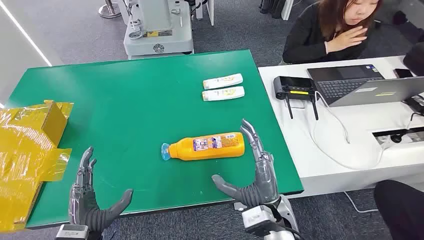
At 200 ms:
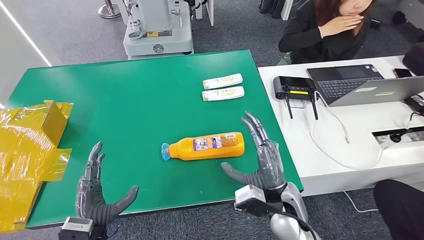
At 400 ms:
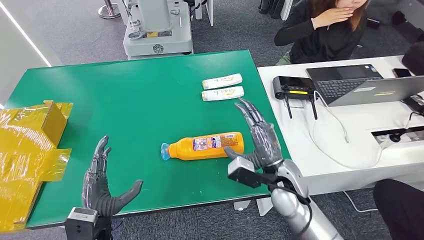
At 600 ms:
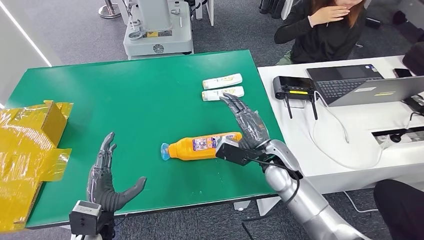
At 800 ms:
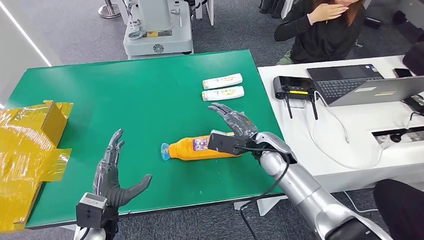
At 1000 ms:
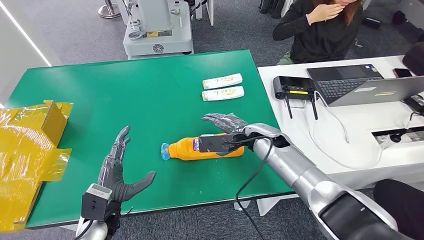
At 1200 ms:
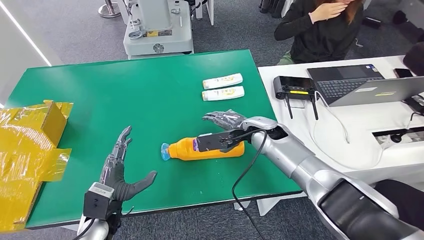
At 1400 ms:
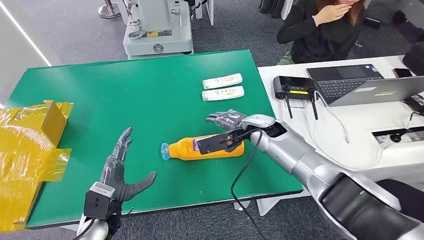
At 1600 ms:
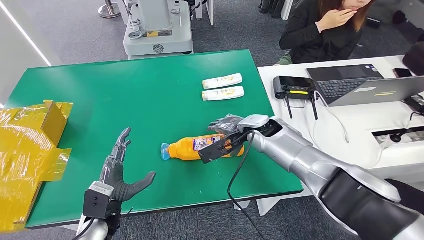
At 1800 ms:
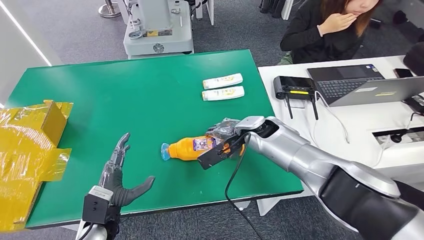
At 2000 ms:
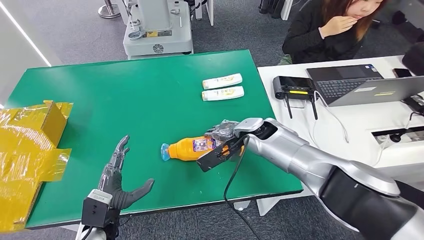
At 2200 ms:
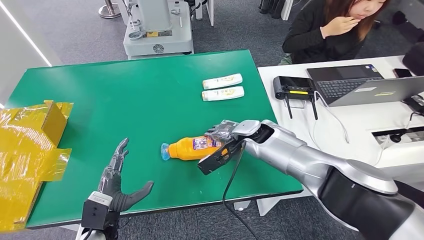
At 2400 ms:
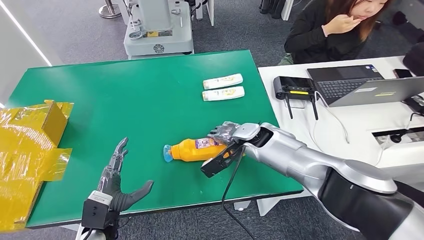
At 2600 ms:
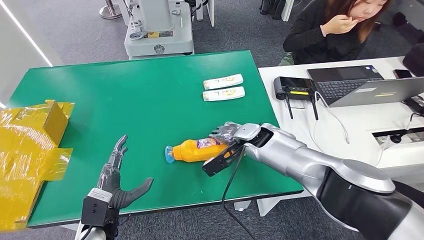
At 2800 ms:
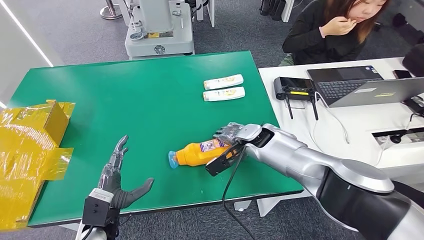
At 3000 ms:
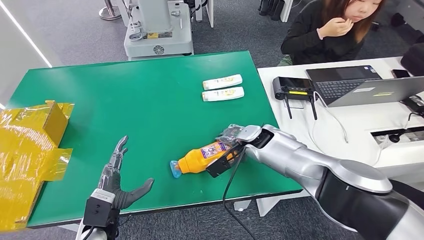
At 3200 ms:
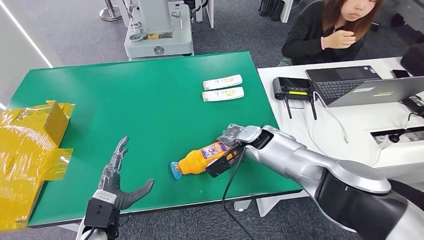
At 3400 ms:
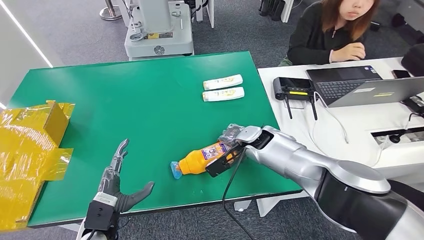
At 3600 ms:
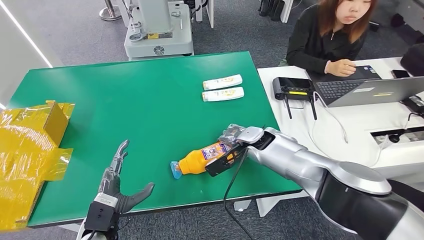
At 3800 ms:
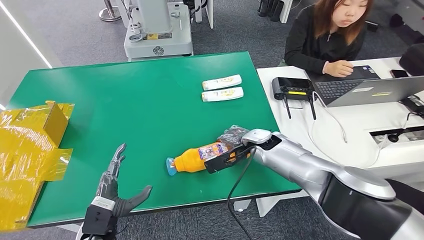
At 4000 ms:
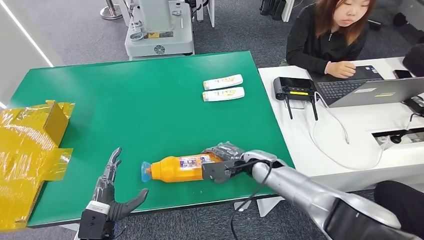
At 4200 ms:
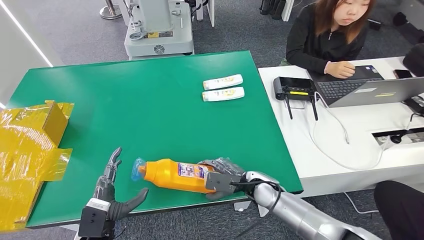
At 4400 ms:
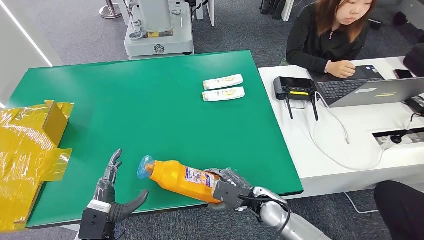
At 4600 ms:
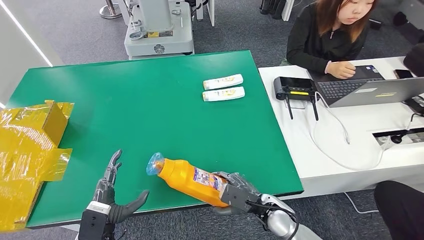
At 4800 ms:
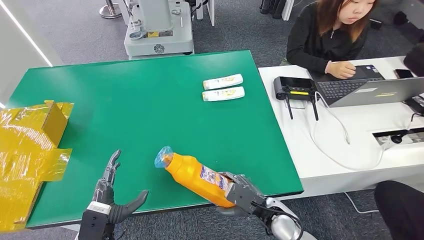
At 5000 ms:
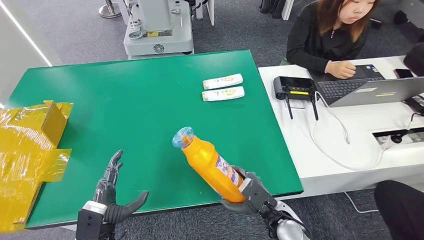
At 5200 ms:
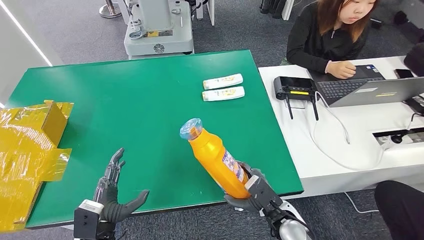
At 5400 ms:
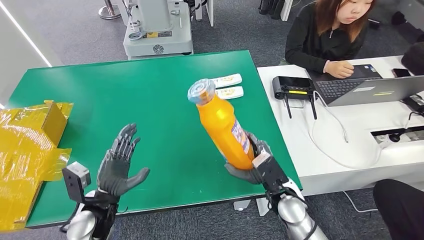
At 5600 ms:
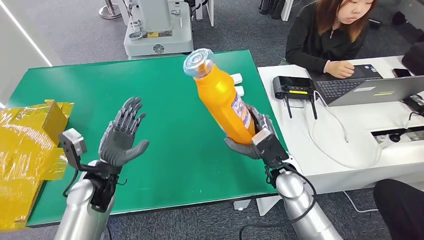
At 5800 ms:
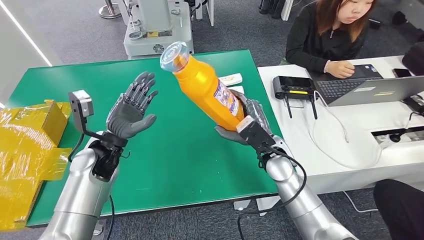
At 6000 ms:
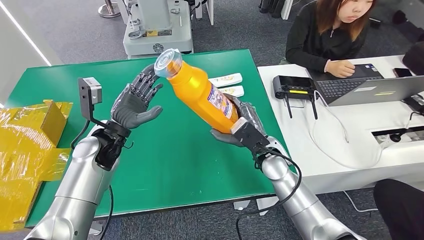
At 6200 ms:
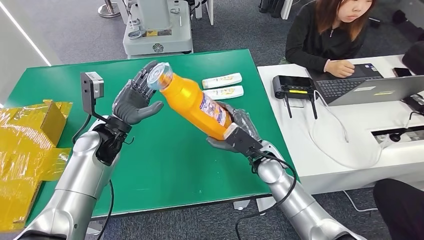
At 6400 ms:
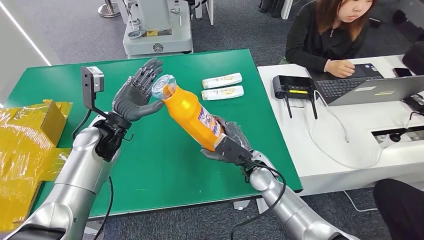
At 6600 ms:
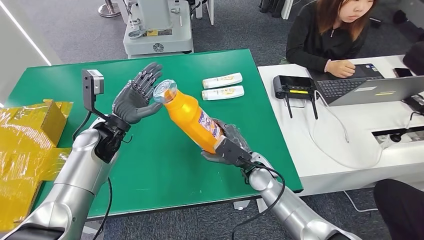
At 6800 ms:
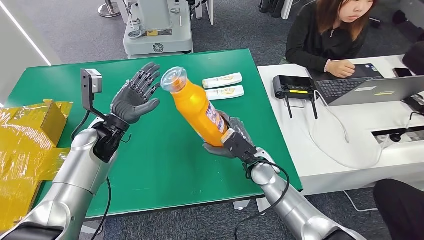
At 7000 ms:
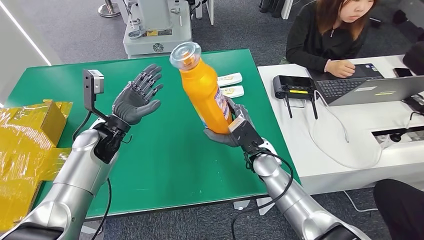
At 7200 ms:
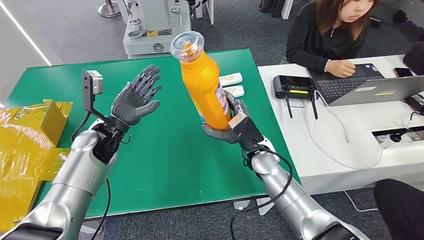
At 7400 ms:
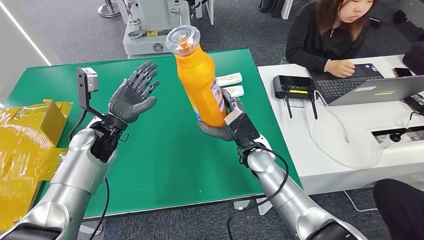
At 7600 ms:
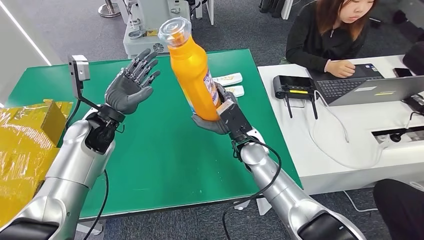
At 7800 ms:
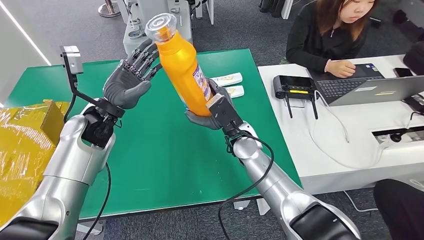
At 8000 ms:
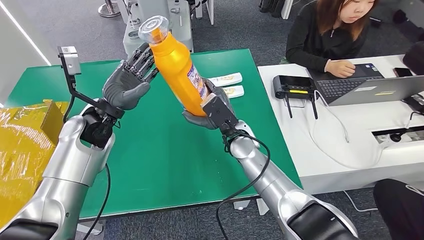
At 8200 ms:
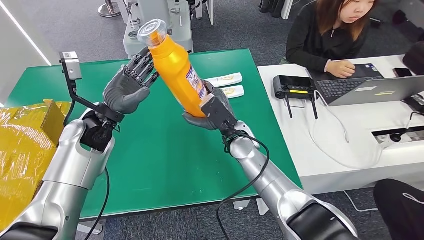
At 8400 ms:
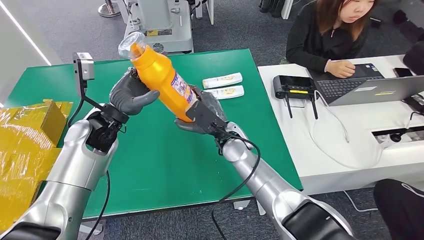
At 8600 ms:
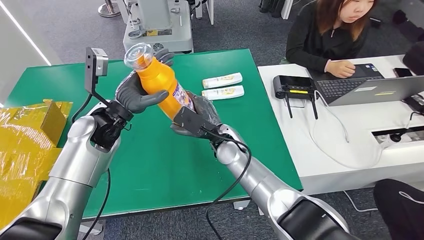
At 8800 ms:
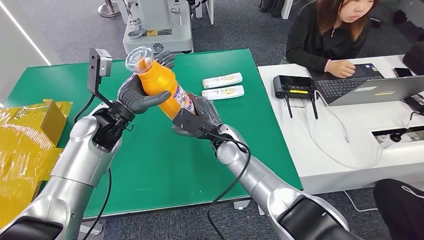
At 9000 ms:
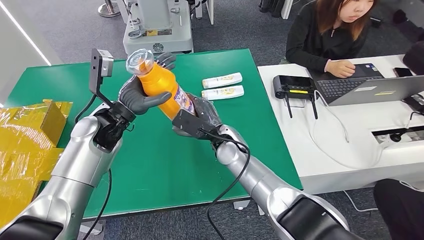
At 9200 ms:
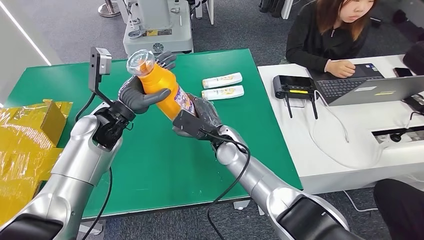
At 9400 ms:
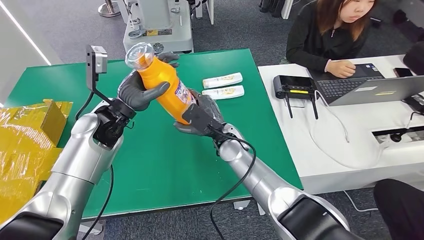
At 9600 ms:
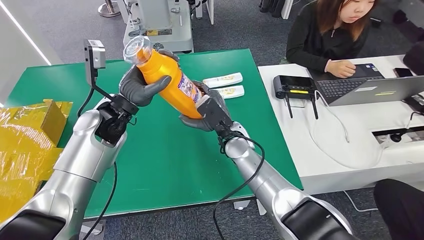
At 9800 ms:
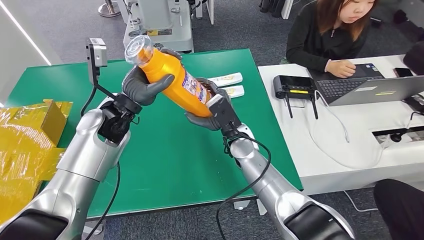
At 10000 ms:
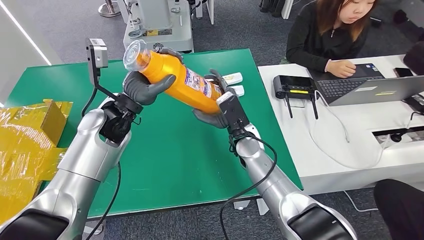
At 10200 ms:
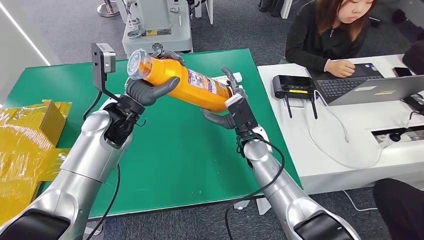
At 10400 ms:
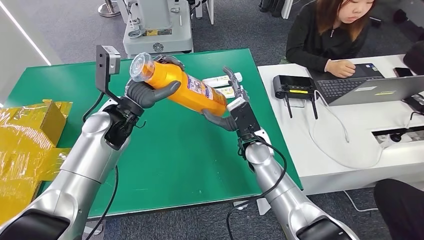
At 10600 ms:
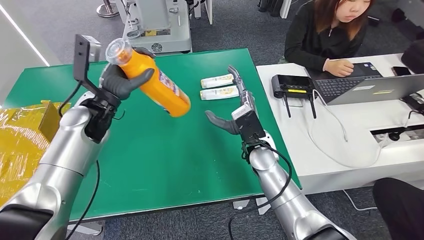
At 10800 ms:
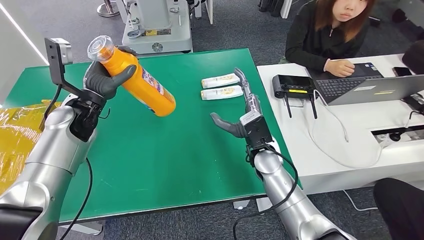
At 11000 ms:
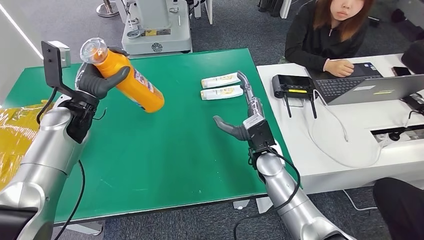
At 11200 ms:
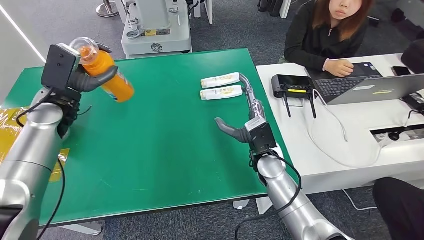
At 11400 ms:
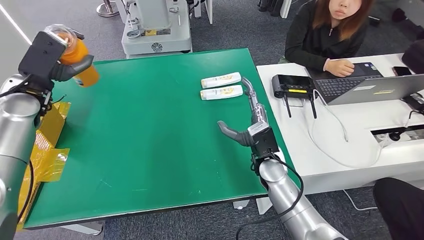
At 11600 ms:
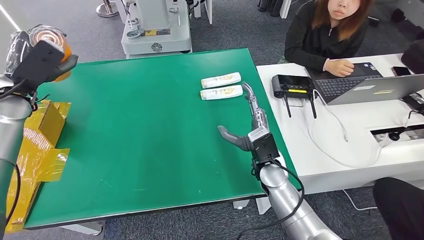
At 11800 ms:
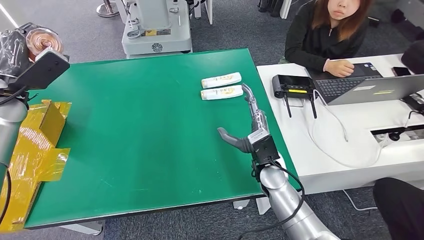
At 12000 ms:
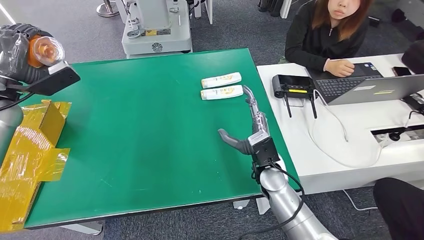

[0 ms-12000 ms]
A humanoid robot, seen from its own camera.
Step, 0 ms to 5000 ms: Pick up the bottle from the table.
6000 ms to 7600 ms: The right hand travels to the left by roughly 5 cm.
9000 ms to 10400 ms: The right hand is displaced to the right by some 5 cm.

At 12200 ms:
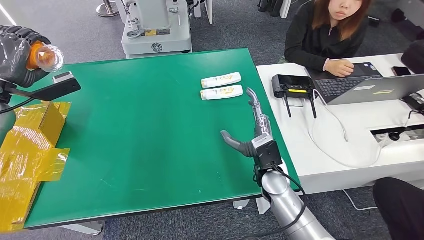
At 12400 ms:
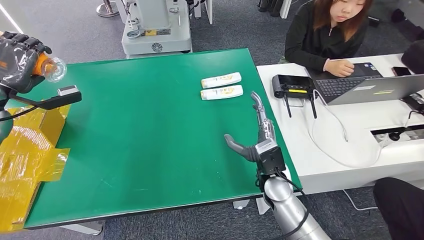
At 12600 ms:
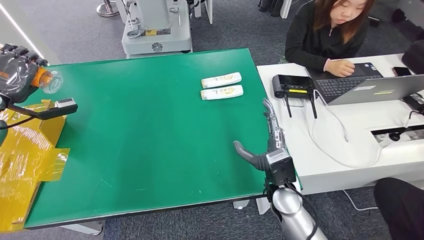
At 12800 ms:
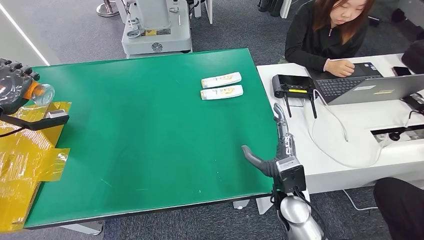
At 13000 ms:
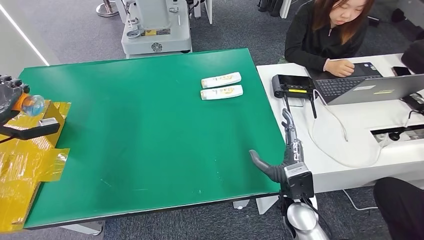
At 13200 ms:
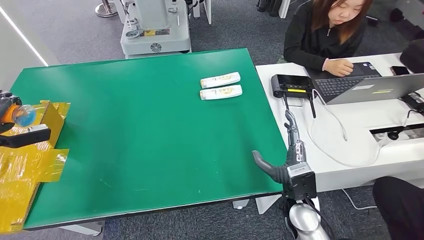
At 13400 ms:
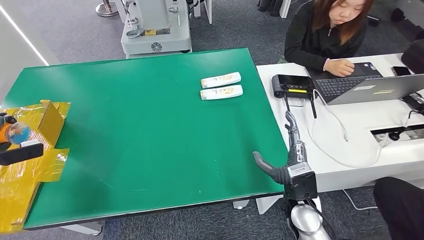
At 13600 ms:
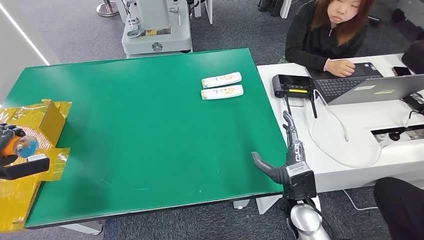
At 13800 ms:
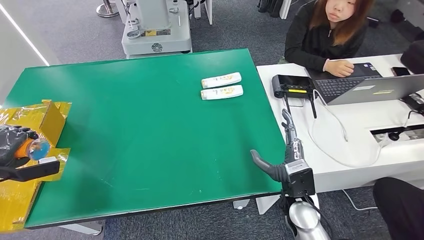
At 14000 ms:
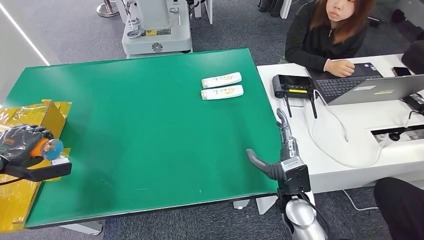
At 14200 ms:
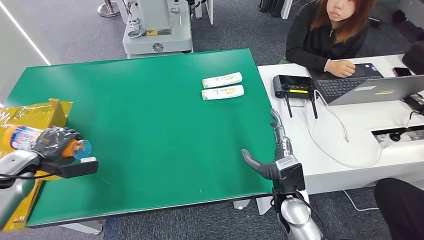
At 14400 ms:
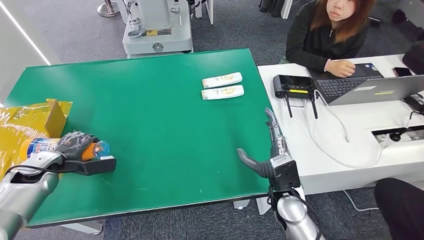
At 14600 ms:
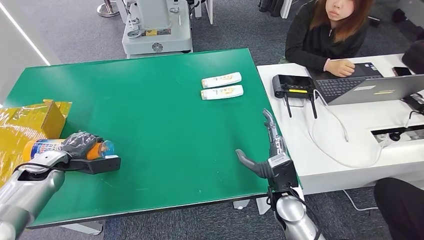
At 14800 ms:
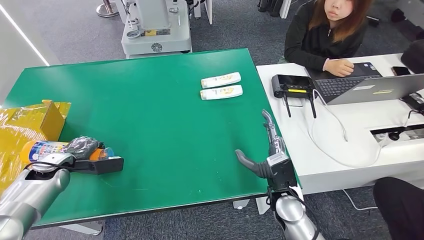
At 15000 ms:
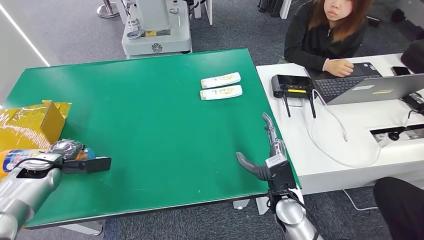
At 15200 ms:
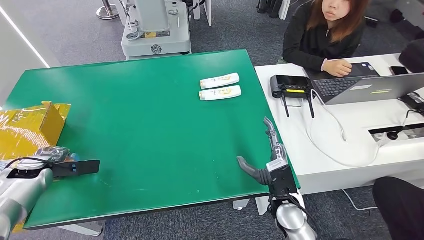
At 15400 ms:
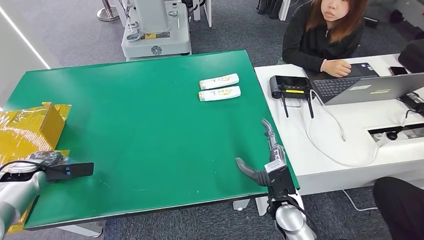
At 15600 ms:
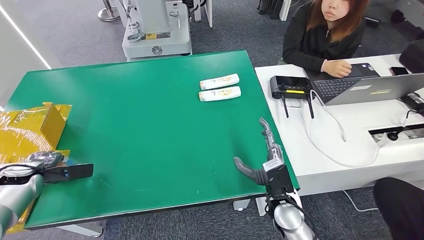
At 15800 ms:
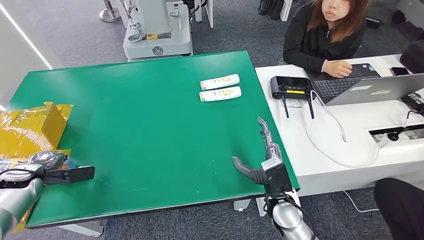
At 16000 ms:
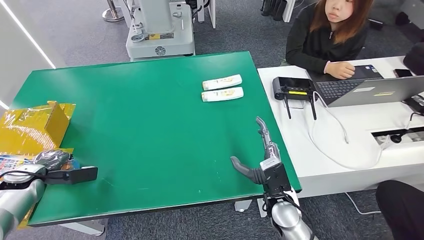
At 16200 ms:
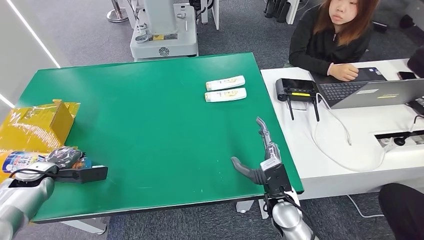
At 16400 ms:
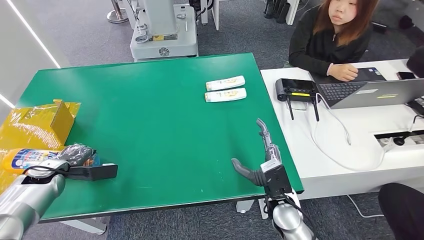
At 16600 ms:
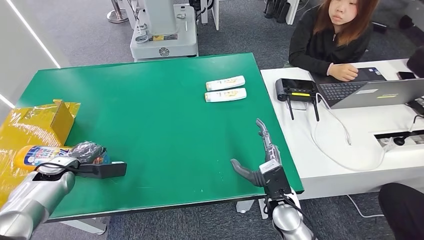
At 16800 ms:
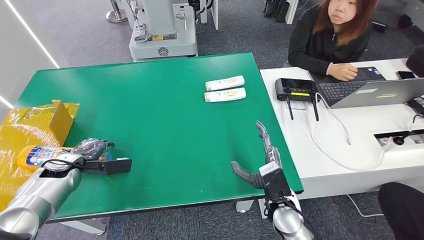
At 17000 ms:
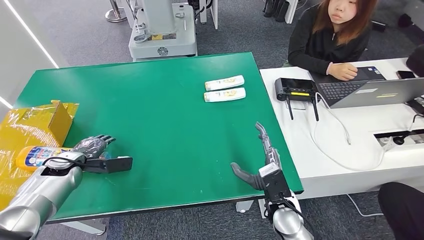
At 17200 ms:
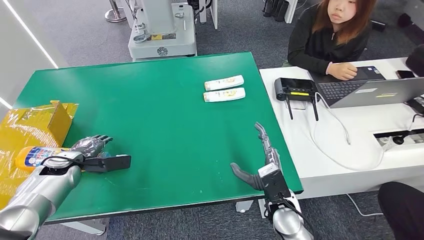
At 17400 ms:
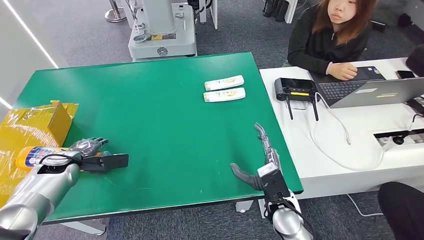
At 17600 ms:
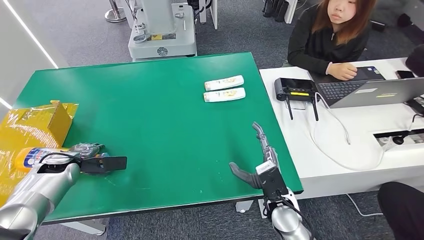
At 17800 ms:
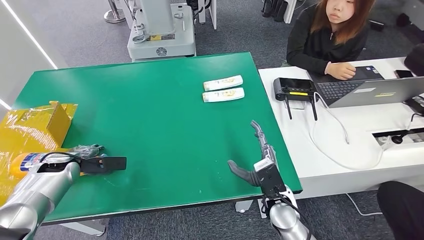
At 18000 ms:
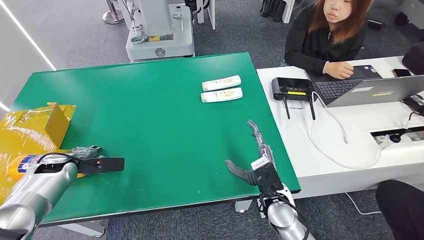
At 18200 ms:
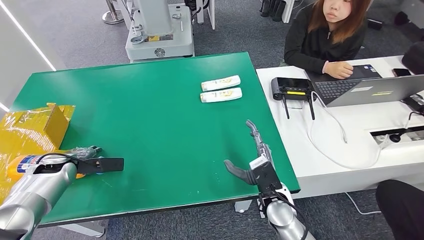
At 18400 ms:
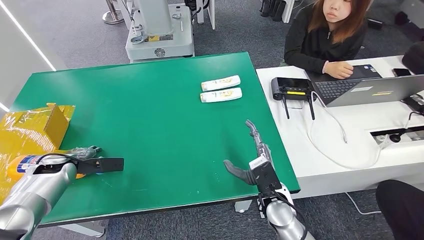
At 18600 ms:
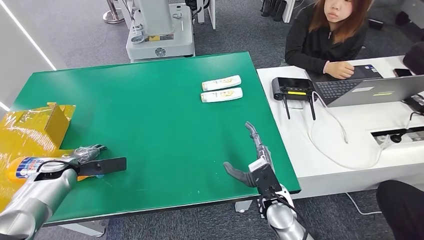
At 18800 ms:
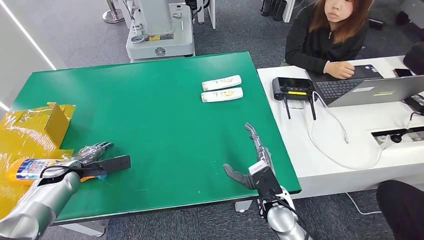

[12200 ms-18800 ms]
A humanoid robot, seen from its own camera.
Step, 12200 ms to 18800 ms: Turn the bottle to the front side.
12200 ms to 13800 ms: The right hand shifts roughly 10 cm backward; the left hand is displaced downward, backward and to the left by about 20 cm.
13800 ms to 15400 ms: The left hand is displaced downward by about 5 cm.
